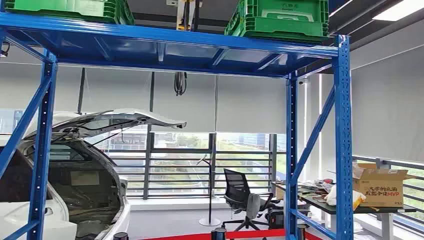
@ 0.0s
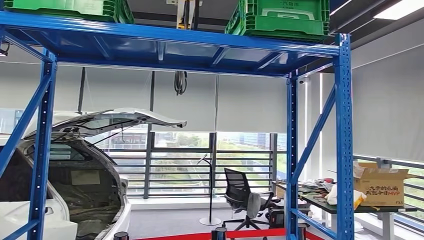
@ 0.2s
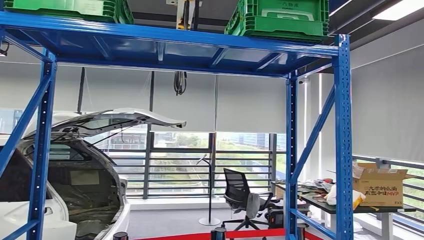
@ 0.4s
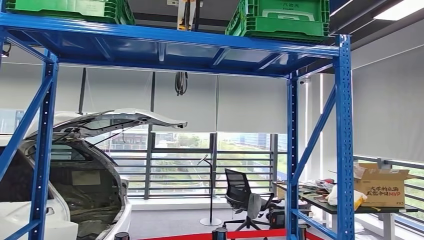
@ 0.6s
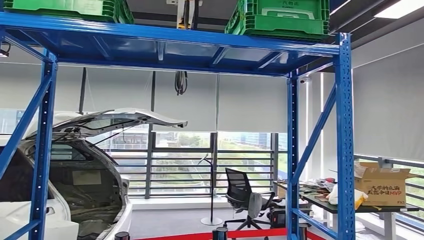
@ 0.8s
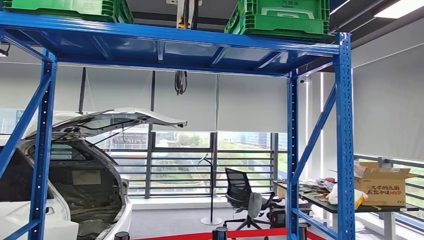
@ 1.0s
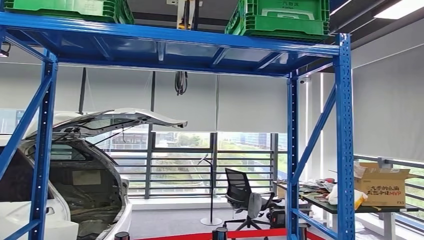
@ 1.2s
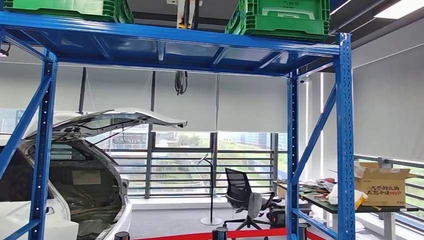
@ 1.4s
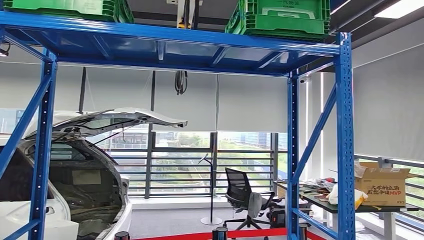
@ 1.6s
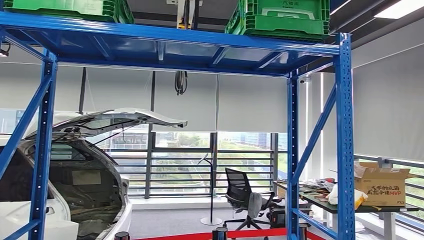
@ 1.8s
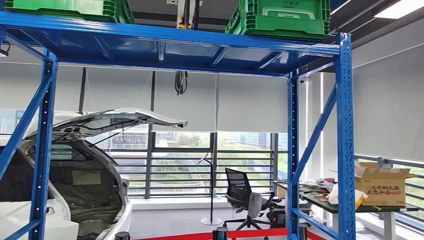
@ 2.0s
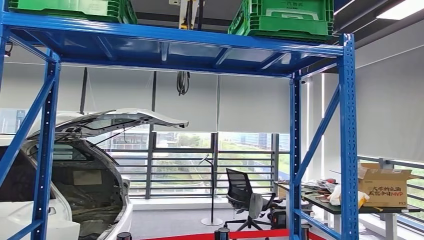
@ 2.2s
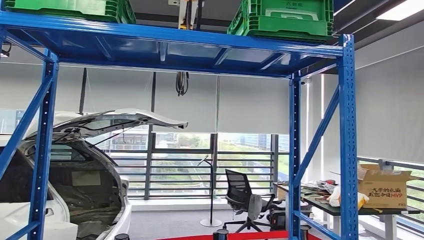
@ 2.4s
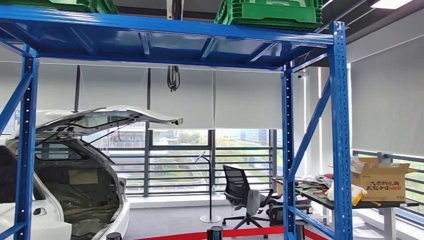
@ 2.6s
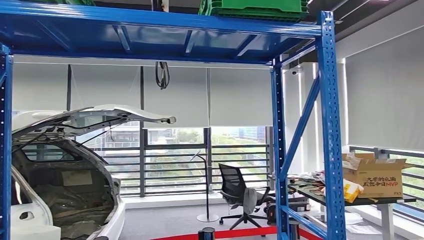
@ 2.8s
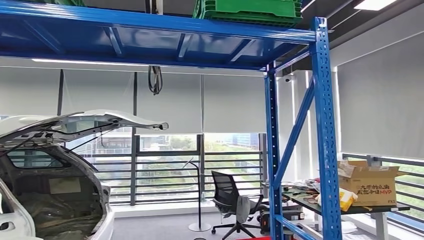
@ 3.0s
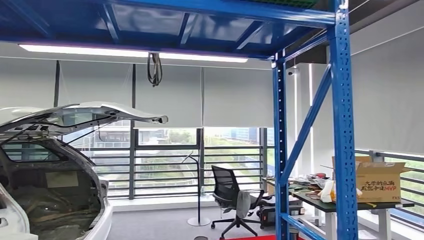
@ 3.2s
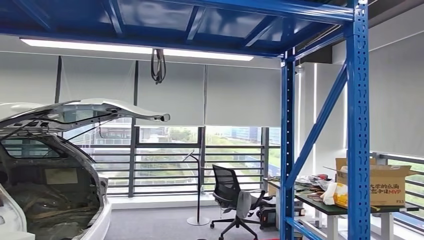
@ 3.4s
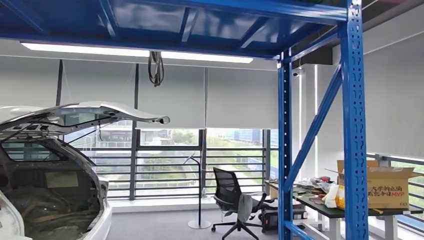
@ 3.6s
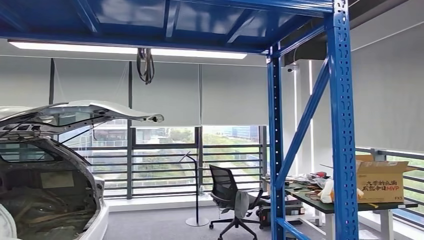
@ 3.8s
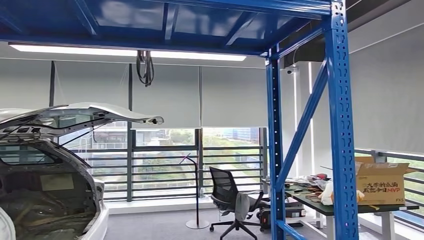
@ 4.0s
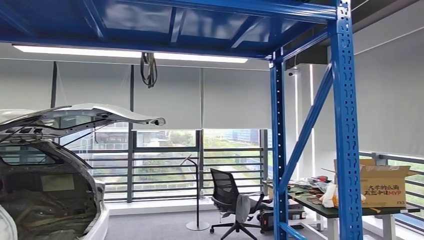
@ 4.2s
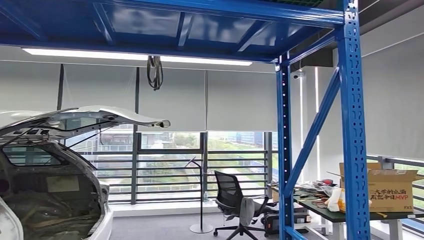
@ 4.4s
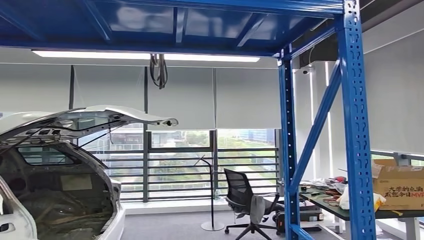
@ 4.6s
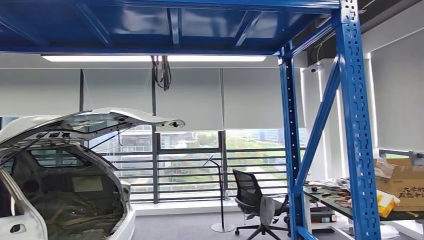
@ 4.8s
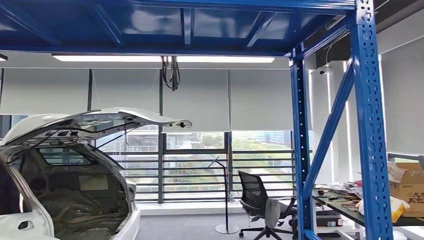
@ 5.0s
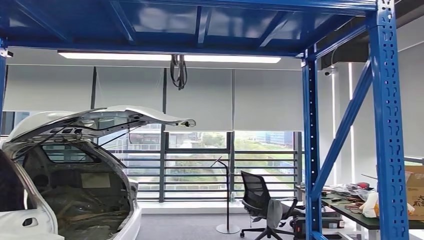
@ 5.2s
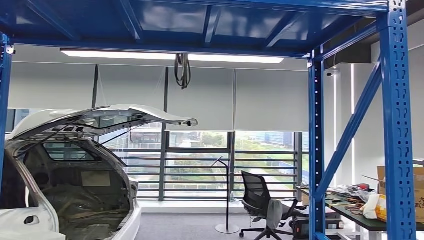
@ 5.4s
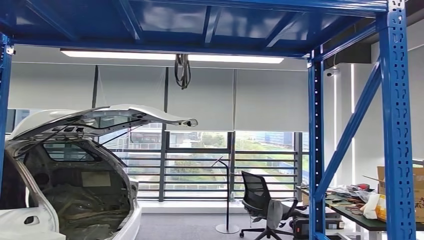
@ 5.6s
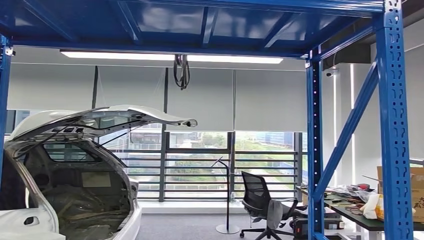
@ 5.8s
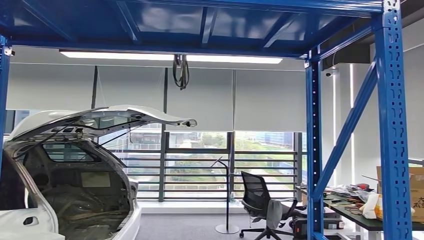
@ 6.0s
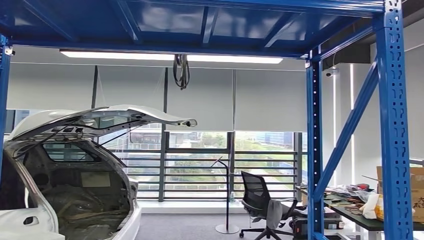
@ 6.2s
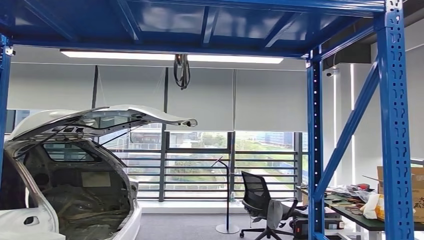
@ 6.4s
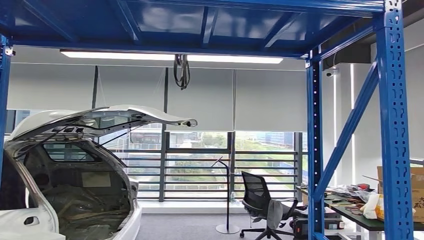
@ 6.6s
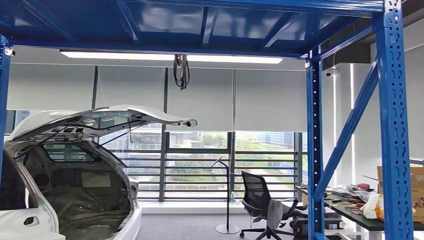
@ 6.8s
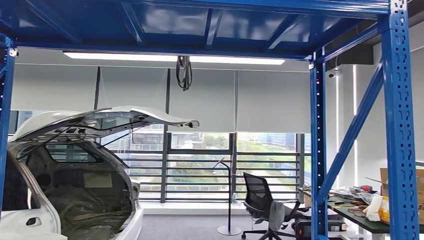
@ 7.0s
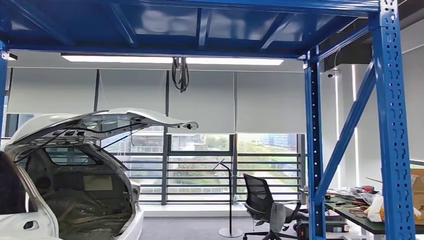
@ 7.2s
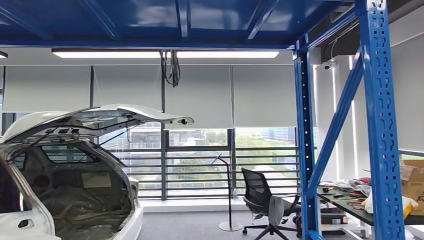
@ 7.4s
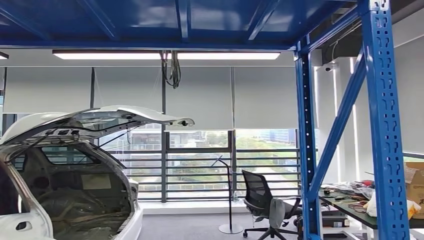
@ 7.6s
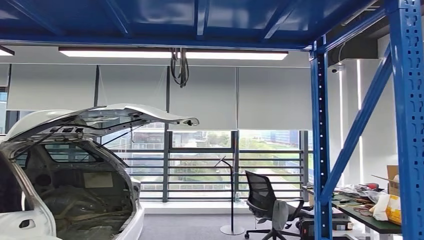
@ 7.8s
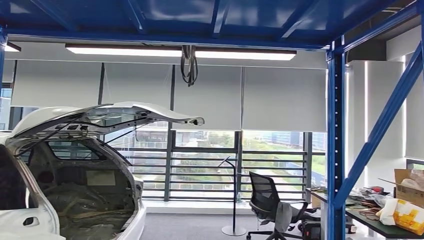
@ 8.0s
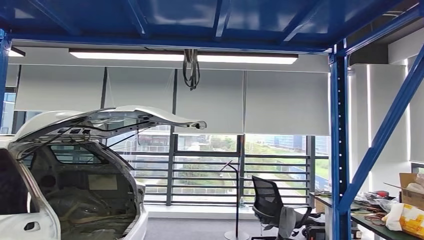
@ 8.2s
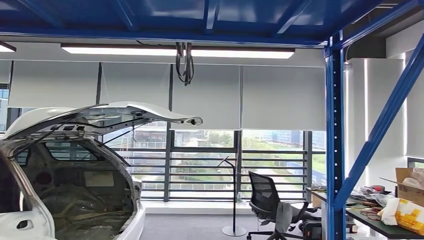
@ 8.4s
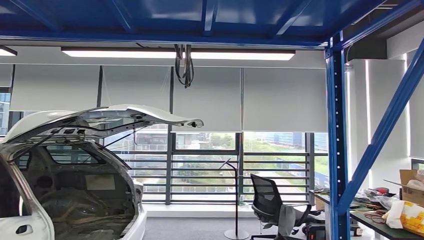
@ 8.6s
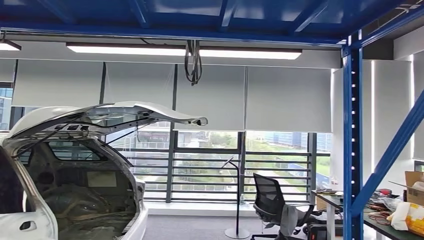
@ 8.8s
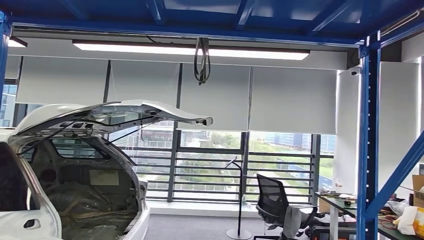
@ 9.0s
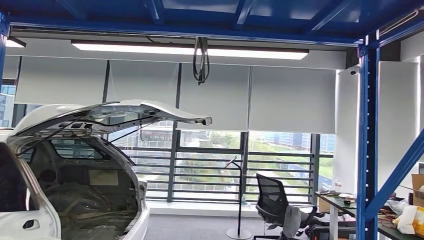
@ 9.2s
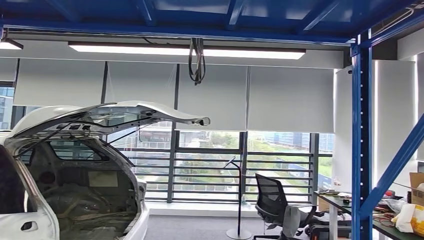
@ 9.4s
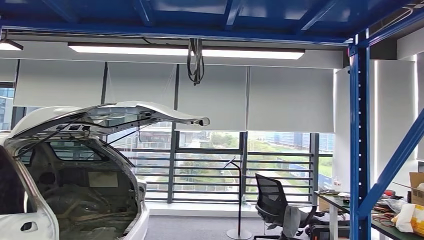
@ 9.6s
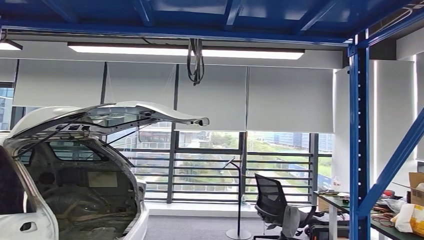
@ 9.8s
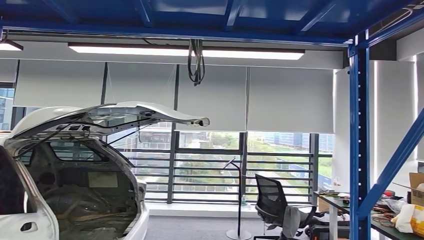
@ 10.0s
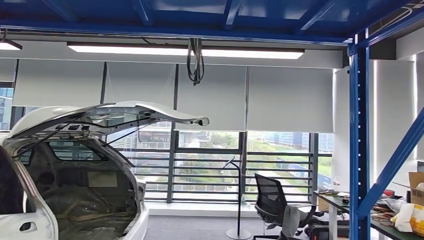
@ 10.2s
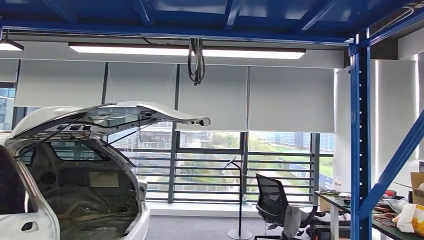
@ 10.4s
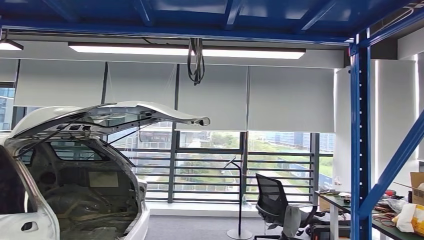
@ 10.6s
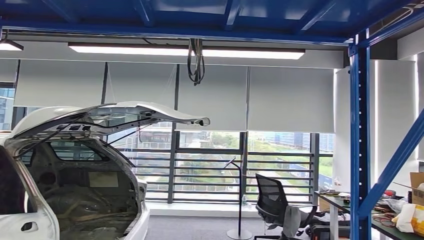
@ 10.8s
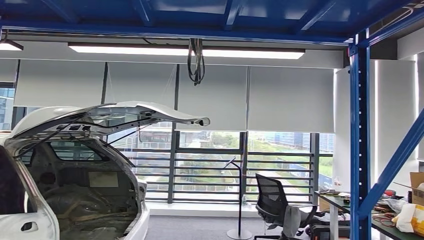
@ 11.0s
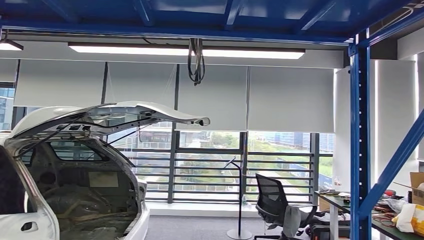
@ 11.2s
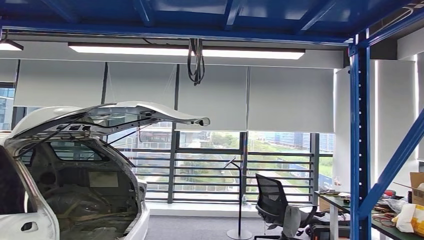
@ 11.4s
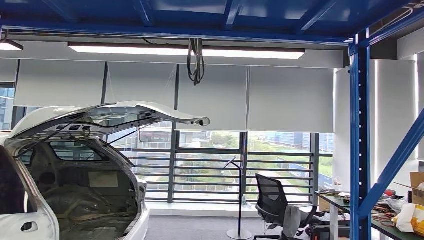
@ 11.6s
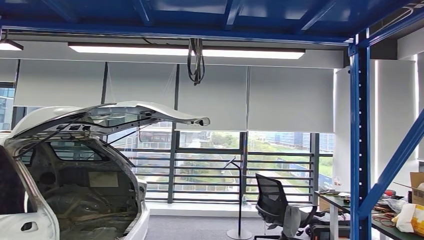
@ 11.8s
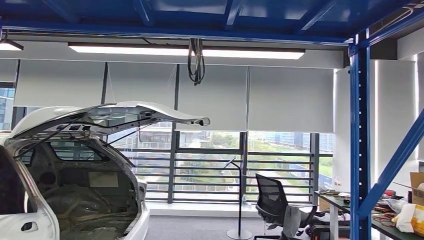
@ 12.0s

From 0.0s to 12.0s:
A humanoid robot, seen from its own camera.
From 10.4s to 12.0s: The hands make only small movements.

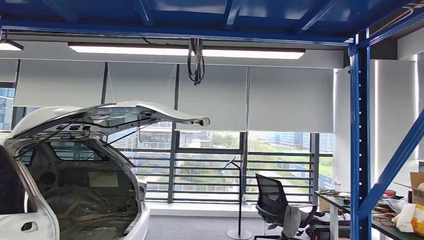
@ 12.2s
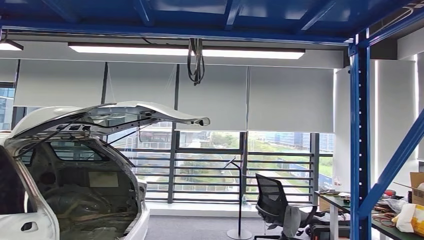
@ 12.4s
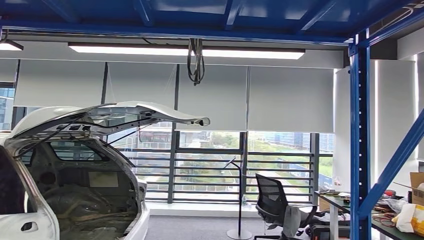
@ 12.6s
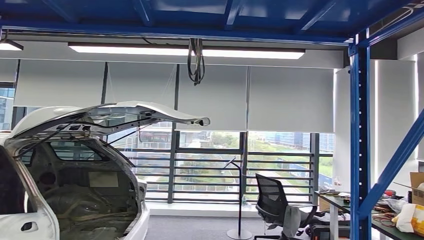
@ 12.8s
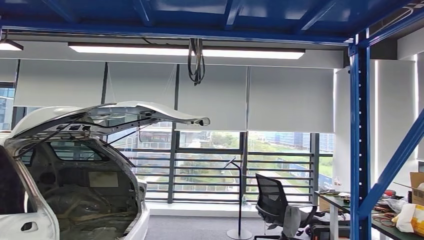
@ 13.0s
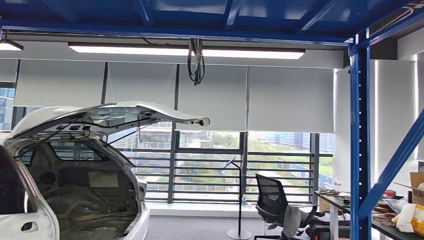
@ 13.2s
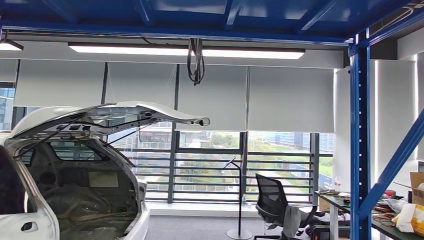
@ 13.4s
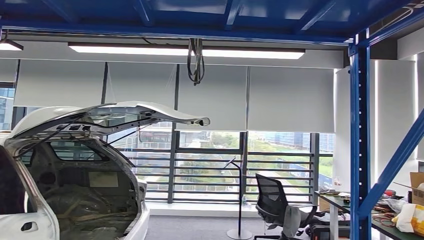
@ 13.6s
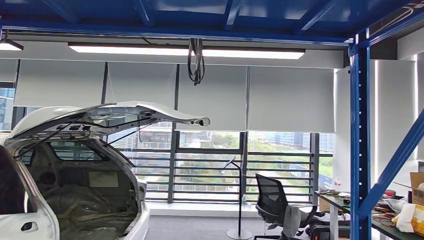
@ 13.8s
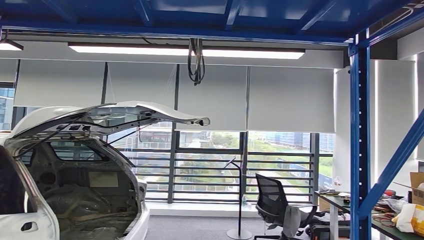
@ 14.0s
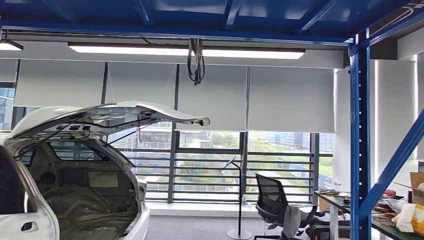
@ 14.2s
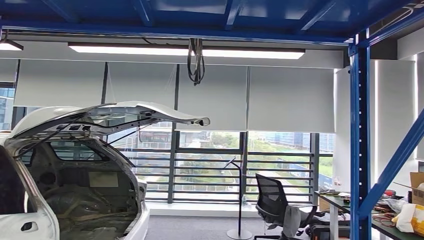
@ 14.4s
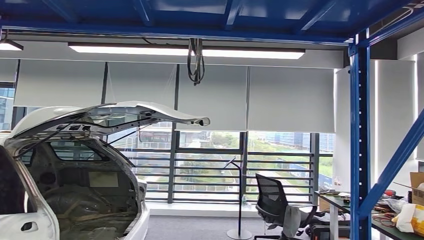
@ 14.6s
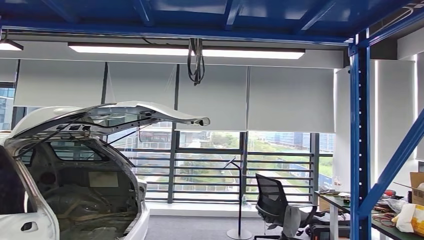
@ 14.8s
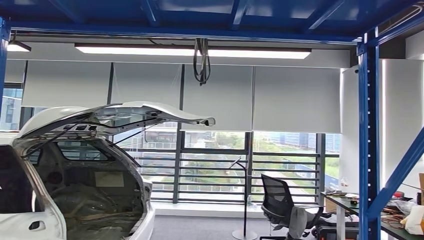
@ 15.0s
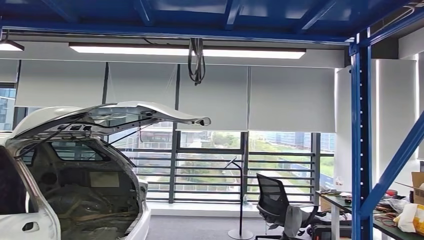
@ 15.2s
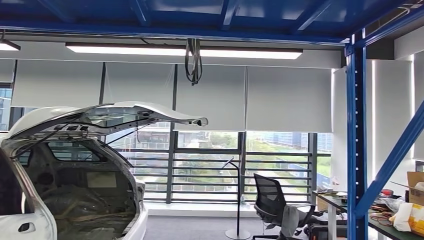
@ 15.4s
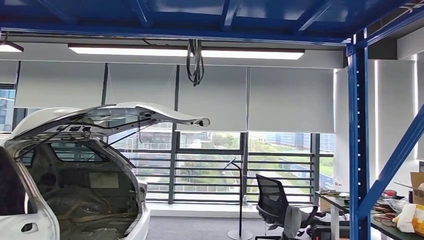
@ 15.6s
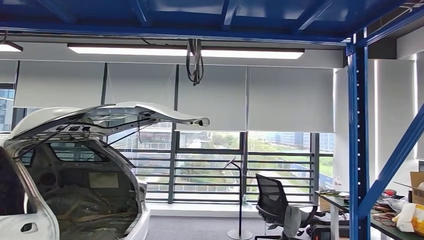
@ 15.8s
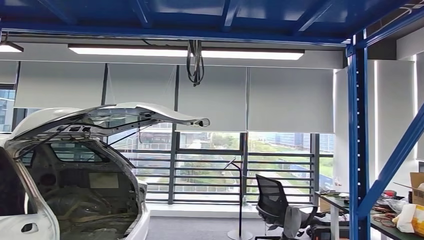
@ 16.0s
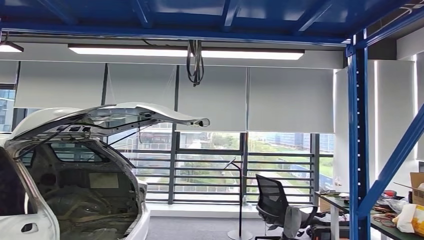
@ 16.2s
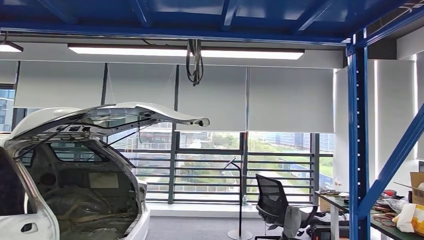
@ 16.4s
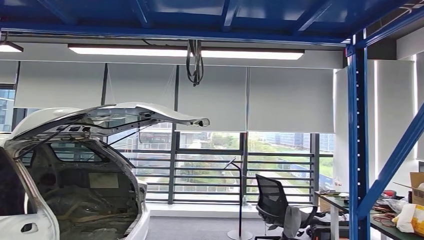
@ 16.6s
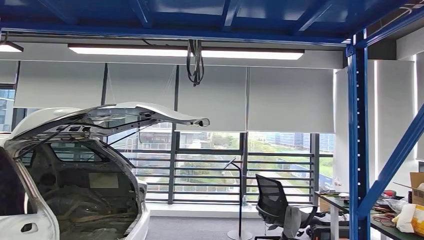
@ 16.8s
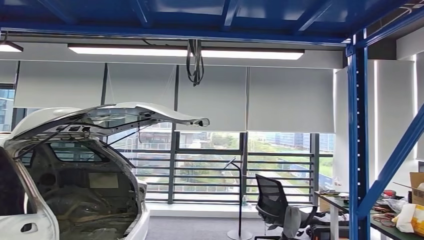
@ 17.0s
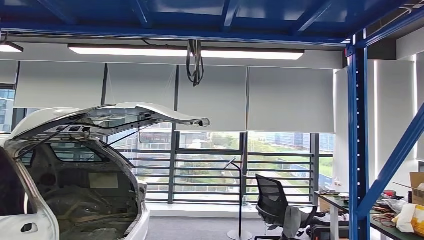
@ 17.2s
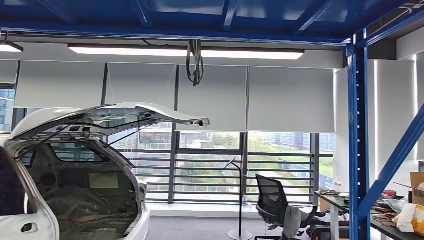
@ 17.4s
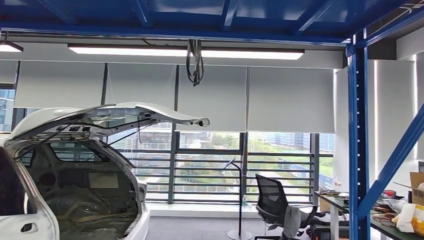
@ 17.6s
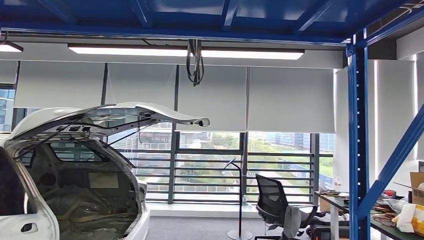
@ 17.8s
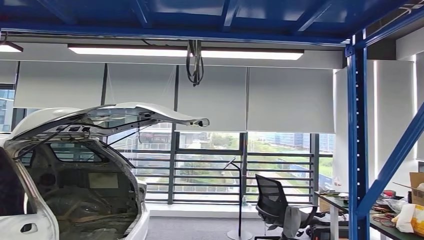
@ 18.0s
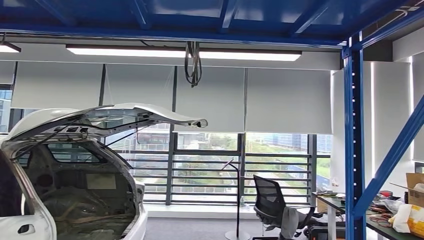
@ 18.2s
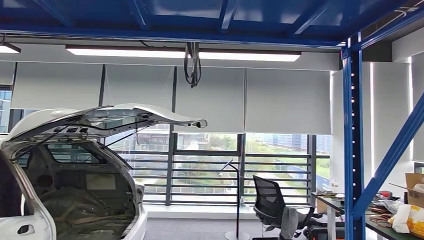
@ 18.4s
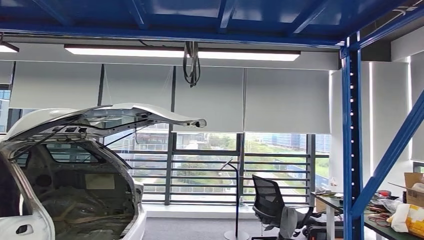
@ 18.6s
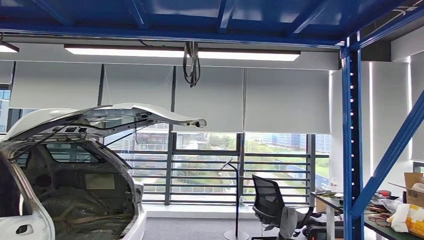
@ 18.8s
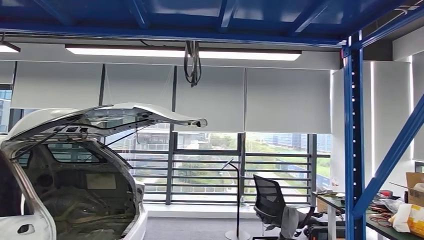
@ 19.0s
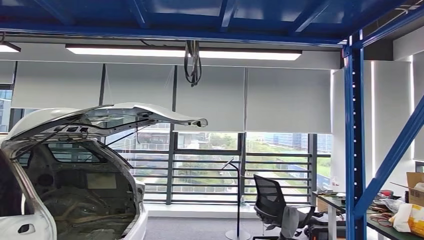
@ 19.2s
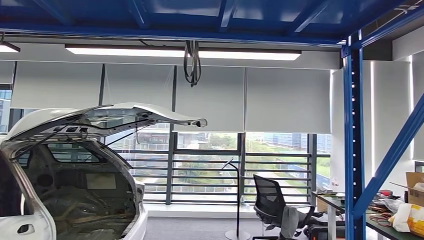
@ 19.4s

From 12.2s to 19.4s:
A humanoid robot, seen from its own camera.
From 12.2s to 13.6s: Both hands stay put.
